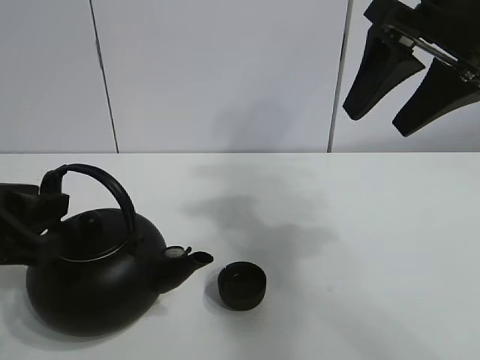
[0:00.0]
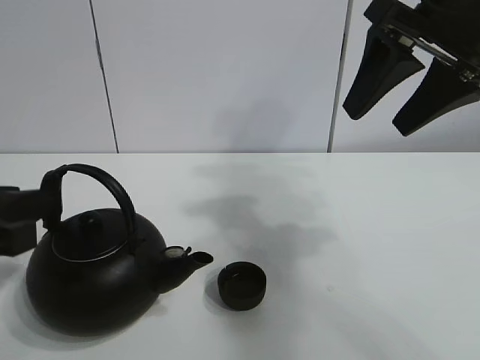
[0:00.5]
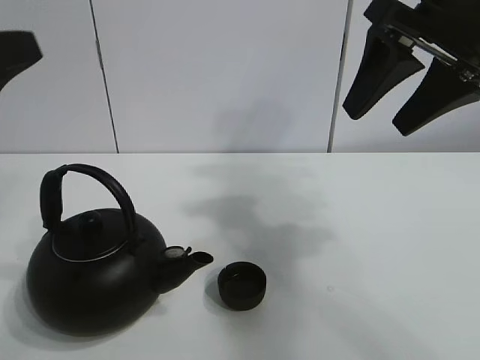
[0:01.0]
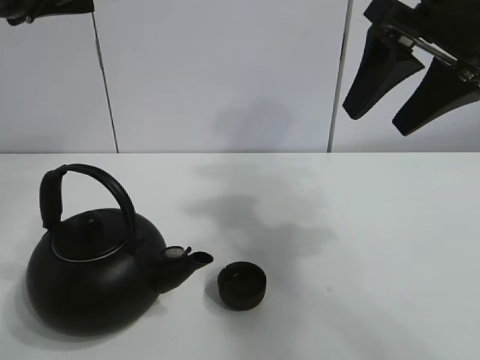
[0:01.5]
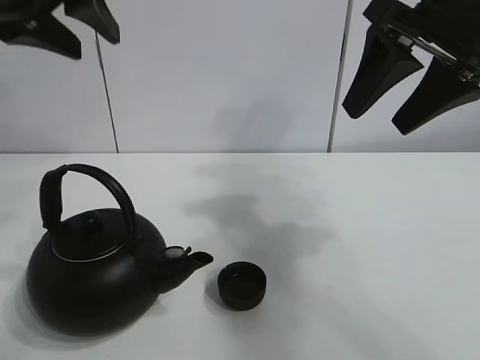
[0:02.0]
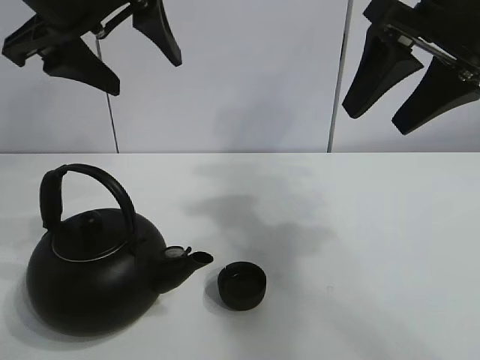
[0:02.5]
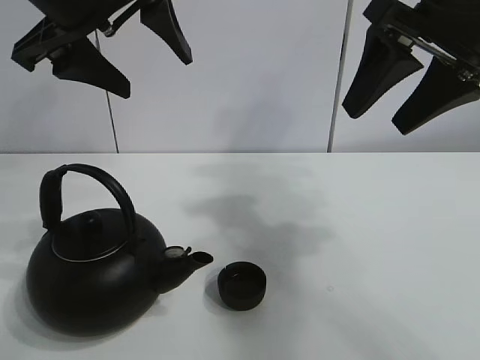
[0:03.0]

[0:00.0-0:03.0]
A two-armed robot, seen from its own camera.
Task of the whole recording: pour tea into the teacup.
0:00.0 to 0:01.5: The left gripper shifts roughly 15 cm upward.
0:01.5 to 0:03.0: The left gripper goes approximately 5 cm forward, and opens.
